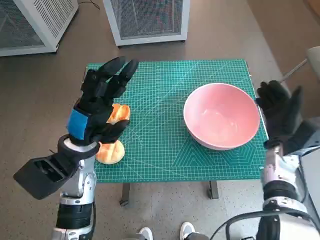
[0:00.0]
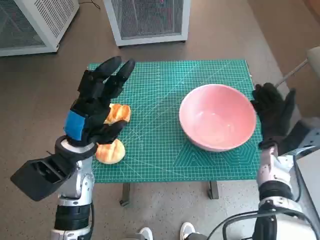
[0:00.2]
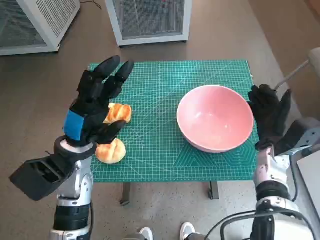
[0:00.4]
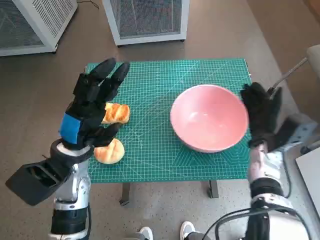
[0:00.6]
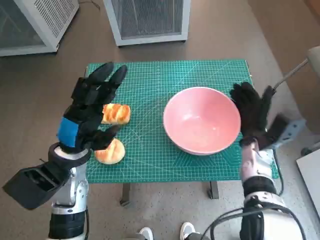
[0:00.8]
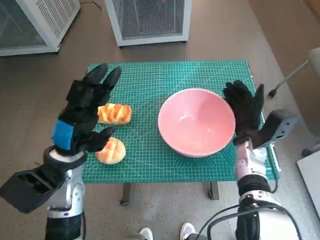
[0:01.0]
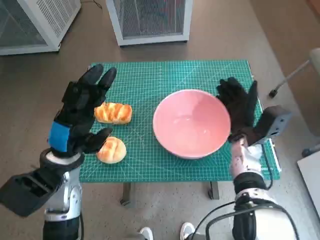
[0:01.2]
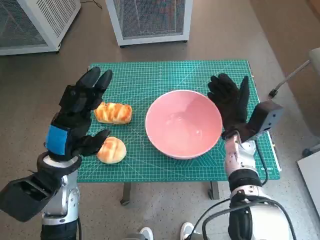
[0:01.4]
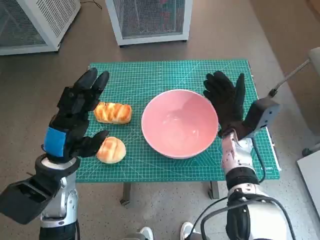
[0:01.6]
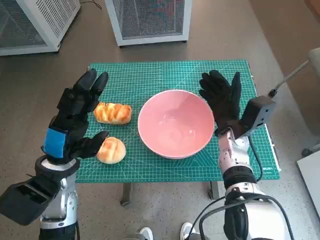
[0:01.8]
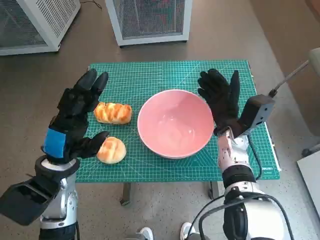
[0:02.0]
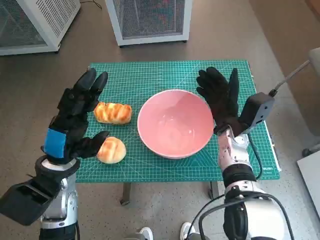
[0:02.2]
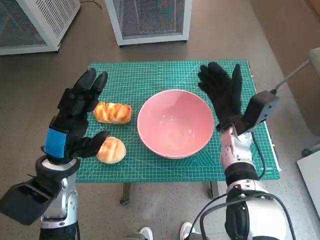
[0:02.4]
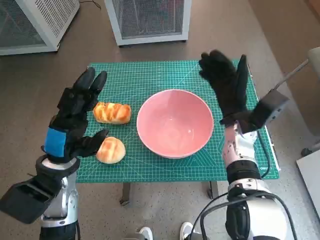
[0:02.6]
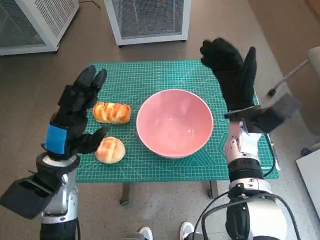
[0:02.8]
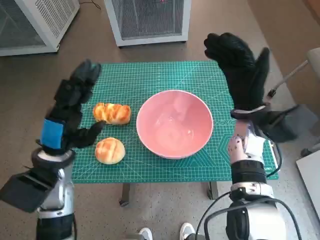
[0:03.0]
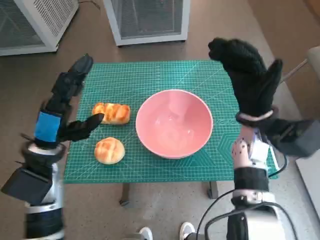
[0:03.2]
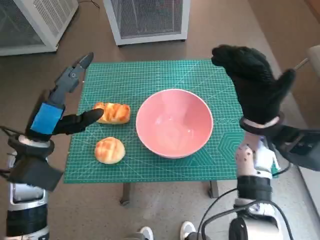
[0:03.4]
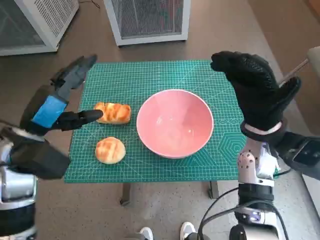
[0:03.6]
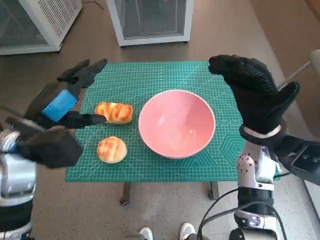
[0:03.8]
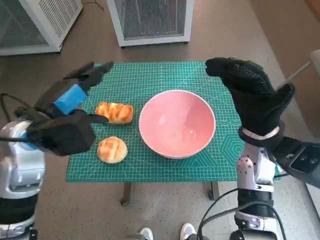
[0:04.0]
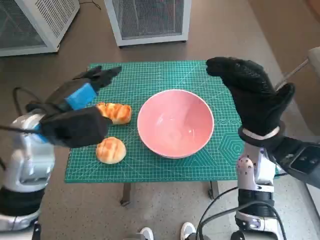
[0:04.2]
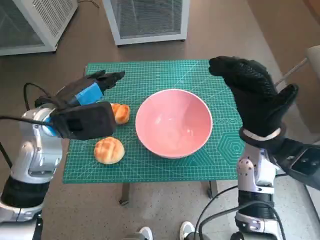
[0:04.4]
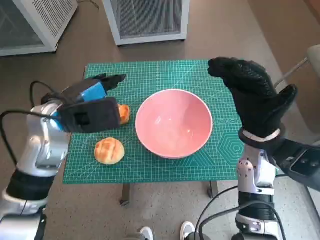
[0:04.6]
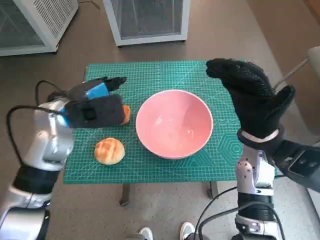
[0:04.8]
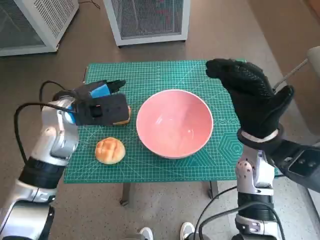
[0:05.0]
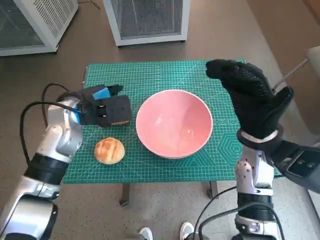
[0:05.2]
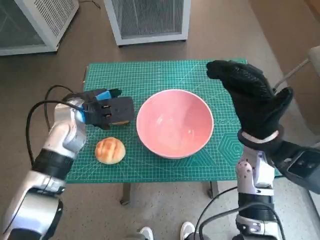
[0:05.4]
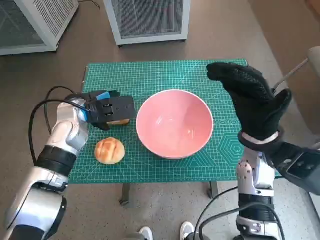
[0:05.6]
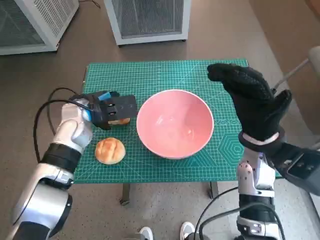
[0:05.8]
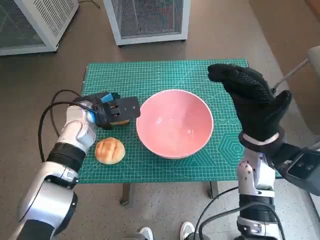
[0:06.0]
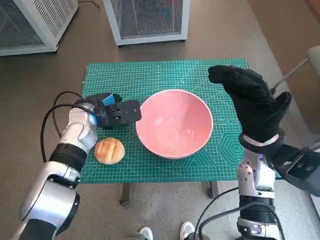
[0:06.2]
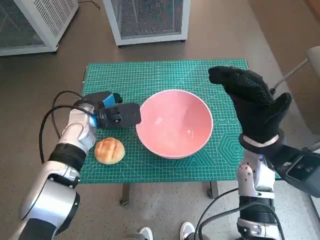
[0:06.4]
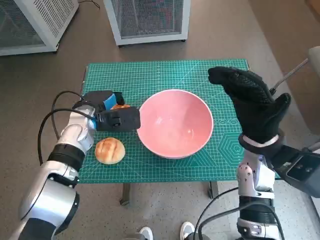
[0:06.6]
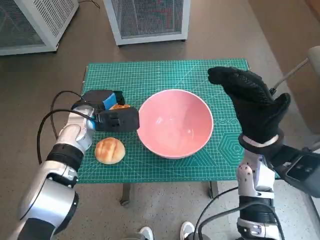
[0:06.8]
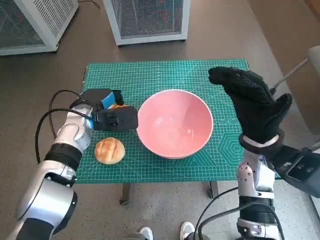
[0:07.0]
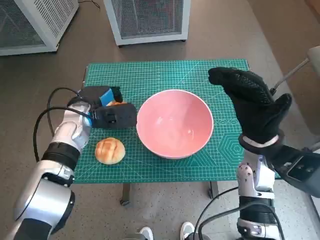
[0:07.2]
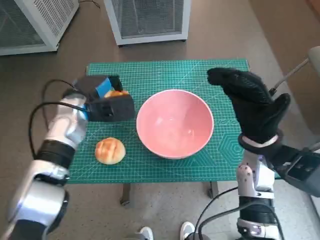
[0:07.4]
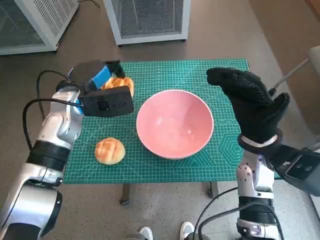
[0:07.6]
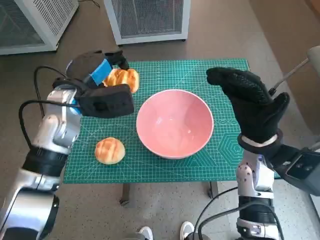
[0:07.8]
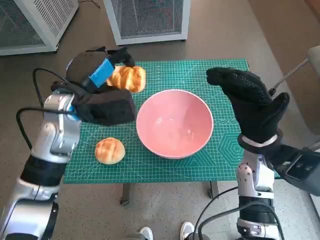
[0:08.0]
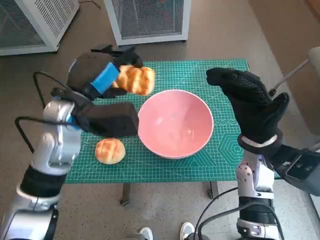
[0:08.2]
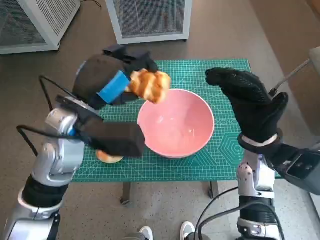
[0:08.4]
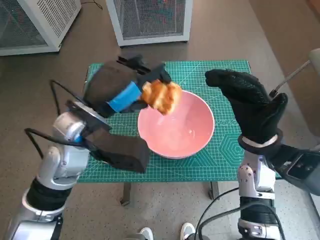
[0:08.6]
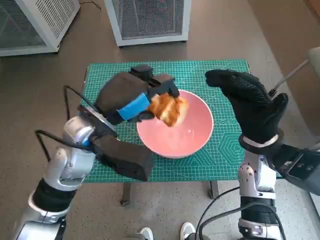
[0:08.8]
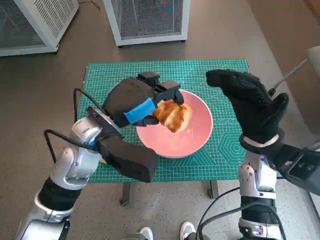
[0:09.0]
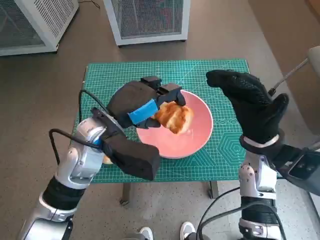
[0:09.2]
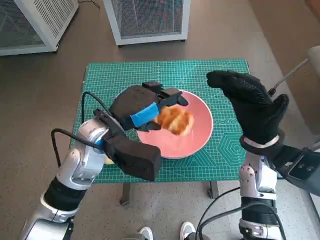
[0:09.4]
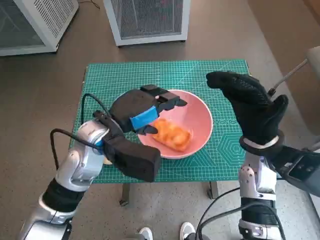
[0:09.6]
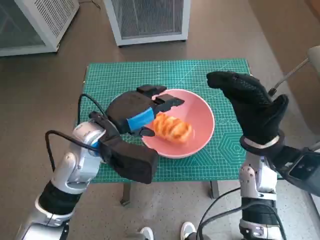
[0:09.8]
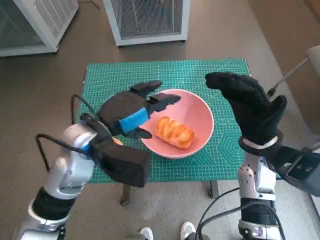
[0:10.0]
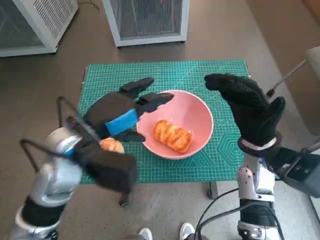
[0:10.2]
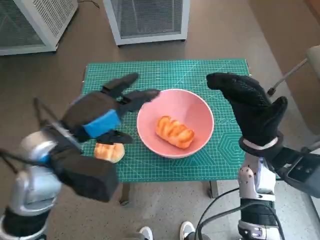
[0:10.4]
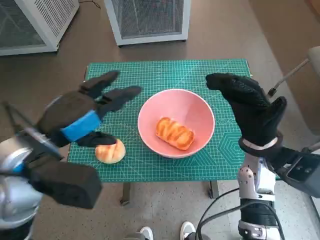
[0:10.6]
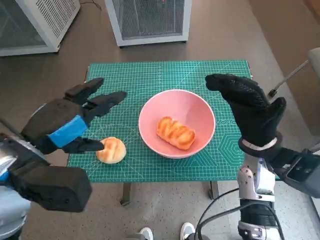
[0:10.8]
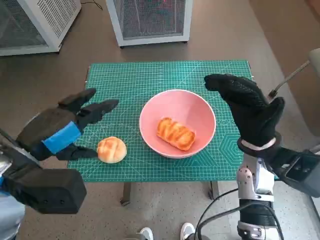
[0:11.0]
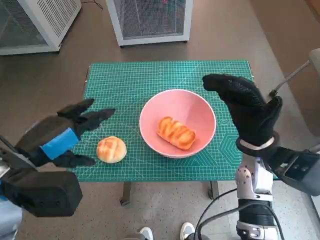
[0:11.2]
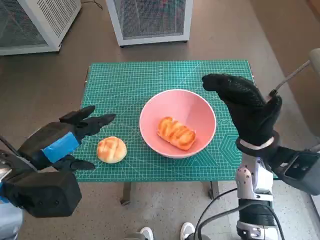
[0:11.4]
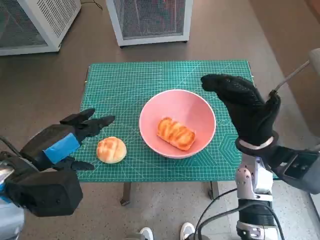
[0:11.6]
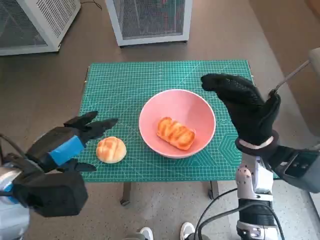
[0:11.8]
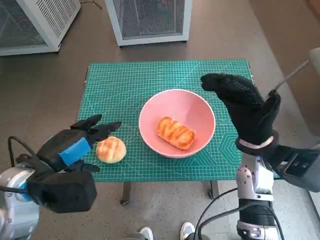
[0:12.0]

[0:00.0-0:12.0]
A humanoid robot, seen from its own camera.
Task of the whole recording: Push the bowl into the center of the table and put the bread into the bowl.
Step, 0.0 to 2.4 s: Move the pink bowl to the center of table with right hand.
Step, 2.6 to 6.4 s: Grasp the long bread with left hand.
Step, 6.6 to 9.4 s: Place the long bread in pink bowl with left hand.
0.0 to 1.6 s: The right hand travels to the left by roughly 10 cm.
1.6 to 3.0 s: The right hand heads upward, covering approximately 5 cm.
3.0 to 4.4 s: The left hand goes roughly 10 cm upward; the right hand travels backward by roughly 5 cm.
4.4 to 6.0 s: The left hand travels downward and forward by some 10 cm.
7.6 to 9.0 s: The left hand shifts roughly 10 cm backward and to the right.
9.0 to 10.4 s: The left hand ends up some 5 cm from where it was.
10.4 to 12.0 s: The left hand goes some 5 cm to the left.

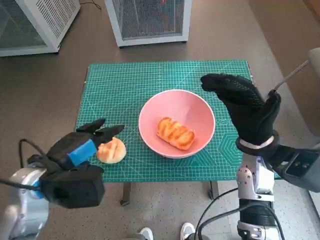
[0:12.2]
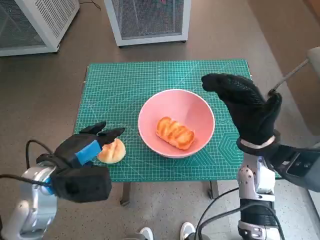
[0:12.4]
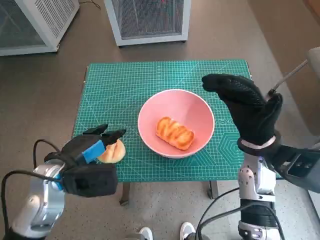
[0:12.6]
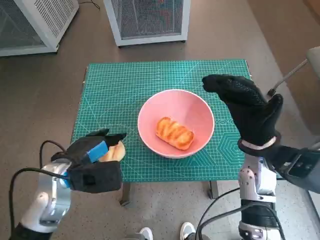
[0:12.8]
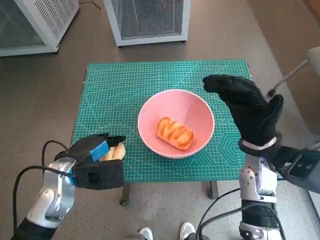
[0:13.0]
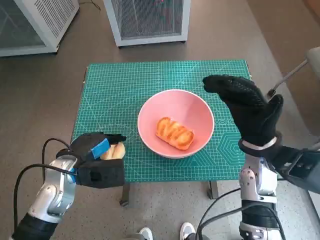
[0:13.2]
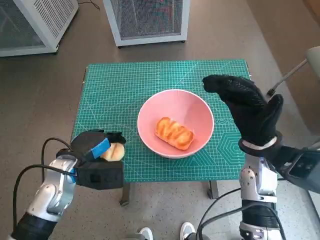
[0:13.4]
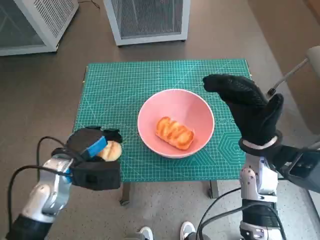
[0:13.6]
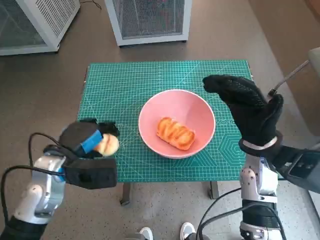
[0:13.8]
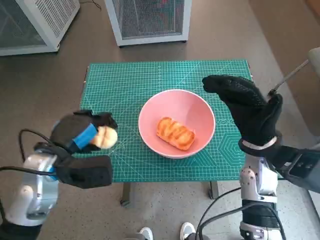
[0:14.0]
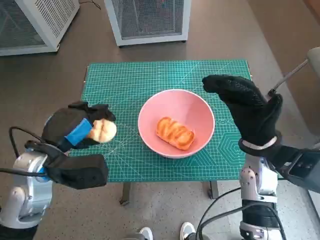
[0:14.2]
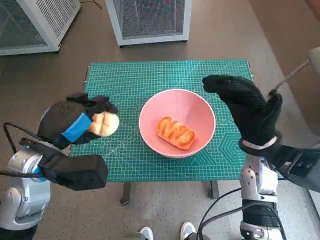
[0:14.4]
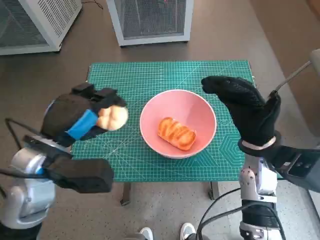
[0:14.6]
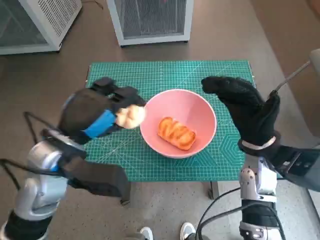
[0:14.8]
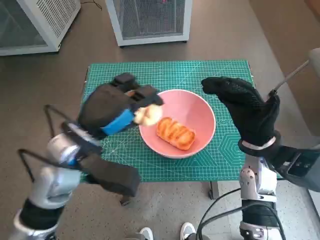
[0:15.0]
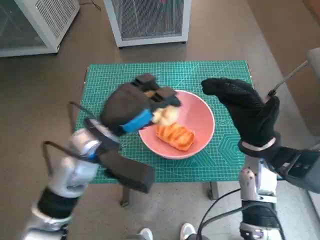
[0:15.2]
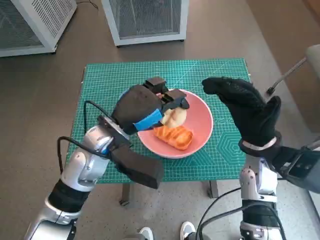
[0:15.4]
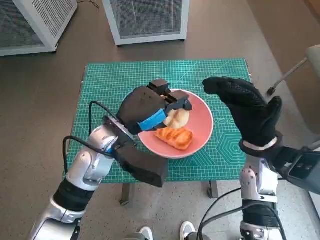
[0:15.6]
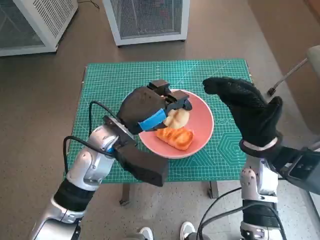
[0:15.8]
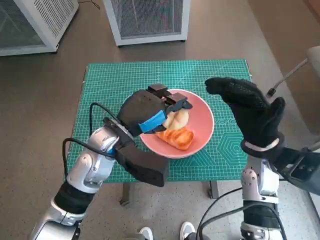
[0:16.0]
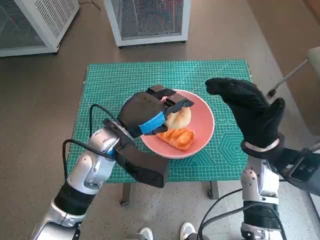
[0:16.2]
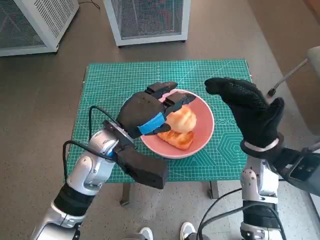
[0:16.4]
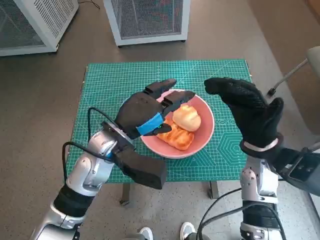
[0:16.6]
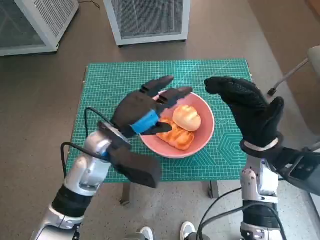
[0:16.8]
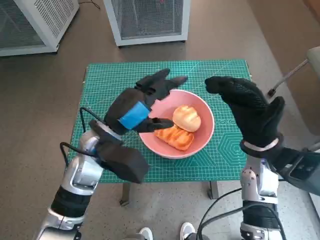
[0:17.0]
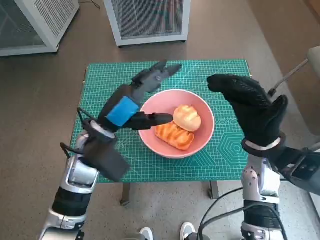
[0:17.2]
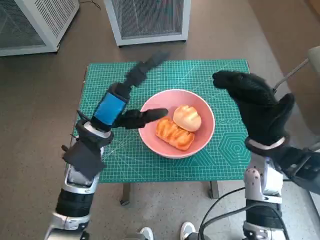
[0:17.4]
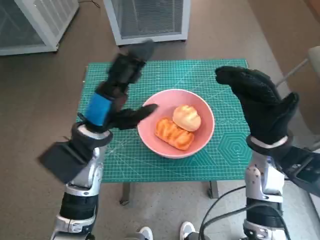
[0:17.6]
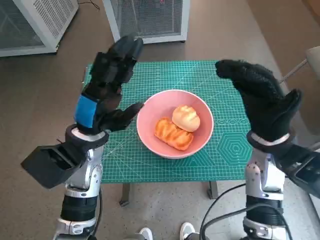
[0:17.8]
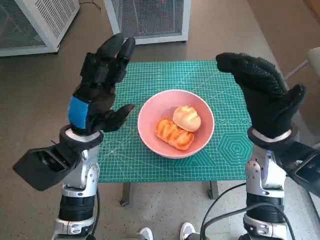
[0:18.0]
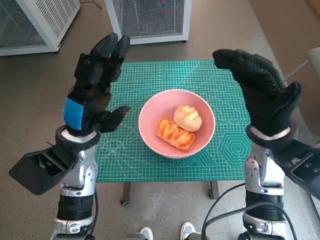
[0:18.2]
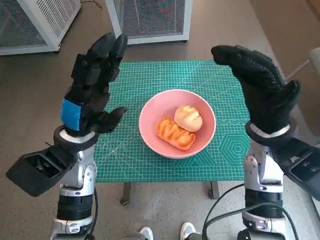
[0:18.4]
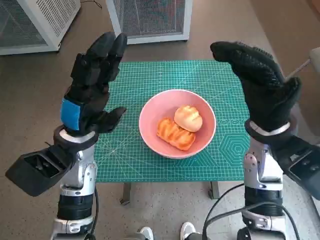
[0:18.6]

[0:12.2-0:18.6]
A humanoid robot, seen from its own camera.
Task of the whole recording: Push the bowl into the center of the table and put the bread into the bowl.
Step, 13.4 to 16.2 s: Place the round bread in pink bowl with left hand.
12.2 to 13.8 s: The left hand goes about 5 cm downward.
13.8 to 15.4 s: The left hand is displaced to the right and upward by approximately 10 cm.
15.4 to 17.0 s: There are only small adjustments of the hands.
17.0 to 18.6 s: The right hand is displaced upward by approximately 5 cm.

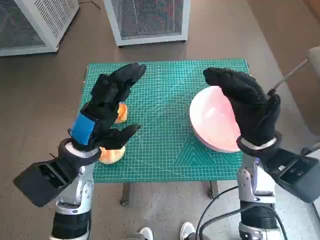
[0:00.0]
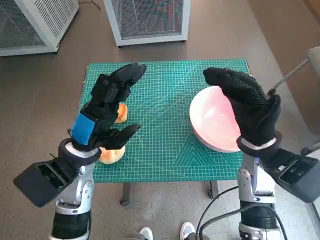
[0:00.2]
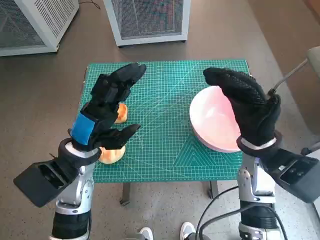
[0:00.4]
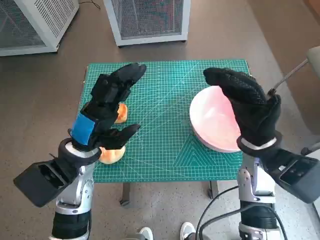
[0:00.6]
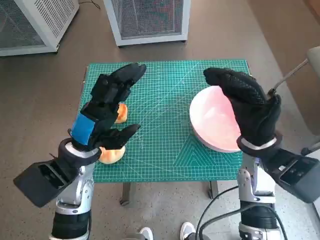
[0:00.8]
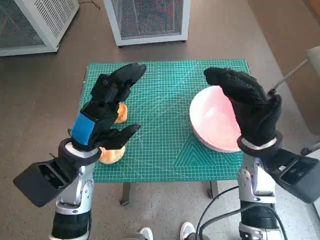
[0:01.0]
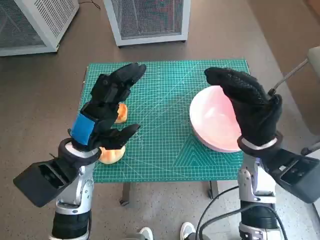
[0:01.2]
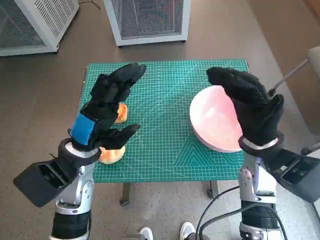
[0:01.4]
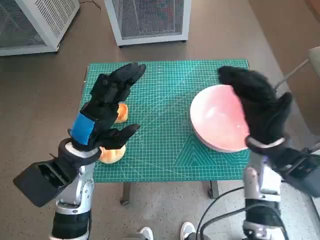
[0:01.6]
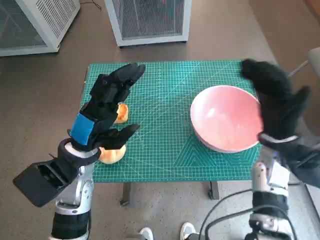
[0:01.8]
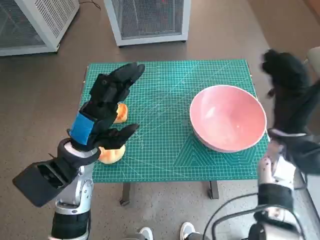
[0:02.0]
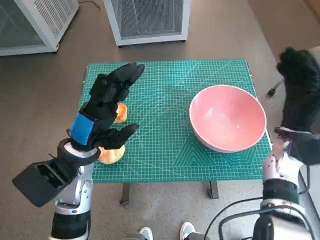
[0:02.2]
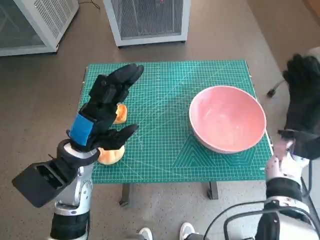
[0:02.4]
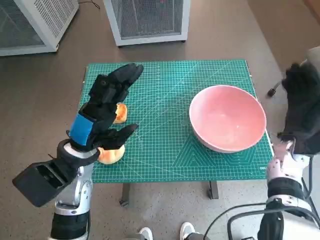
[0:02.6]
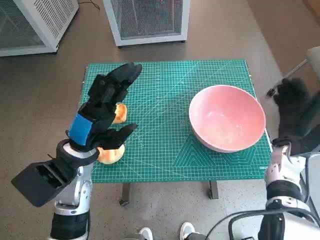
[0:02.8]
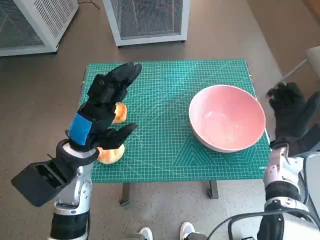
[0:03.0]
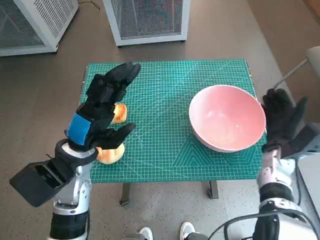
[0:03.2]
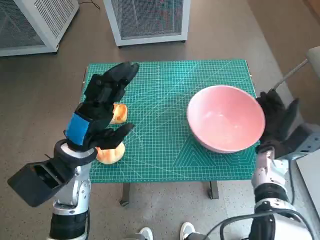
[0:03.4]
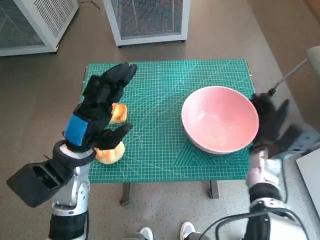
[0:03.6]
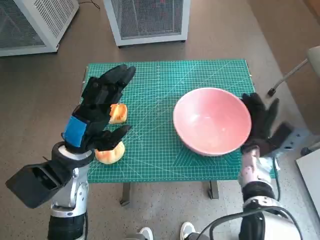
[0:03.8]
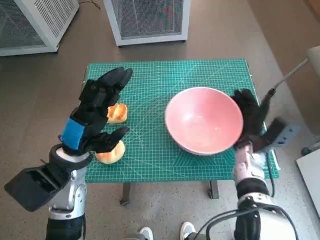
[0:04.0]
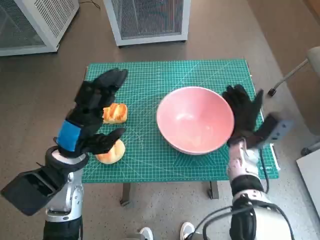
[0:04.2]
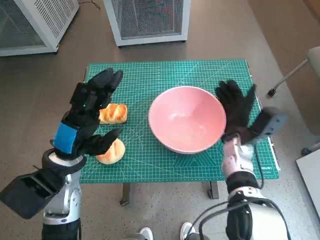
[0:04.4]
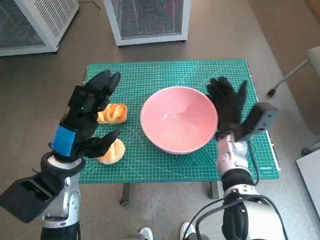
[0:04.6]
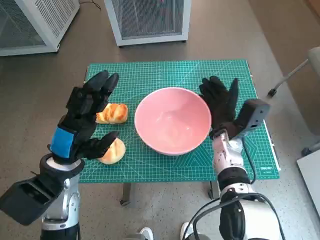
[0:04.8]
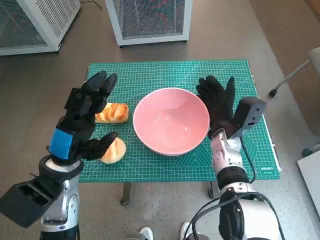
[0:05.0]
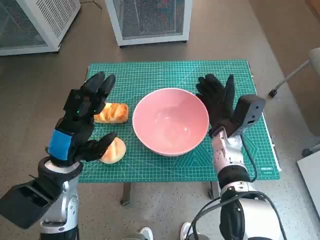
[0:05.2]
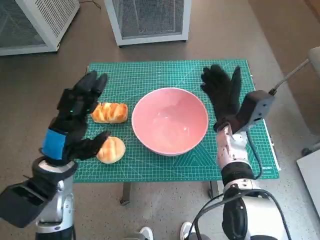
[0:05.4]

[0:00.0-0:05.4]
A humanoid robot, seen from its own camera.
Task of the whole recording: Push the bowl into the center of the table and put the bread into the bowl.
Step, 0.0 to 5.2 s: Move the pink bowl to the center of table with right hand.
1.4 to 2.8 s: The right hand shifts approximately 10 cm to the right and downward.
2.8 to 4.0 s: The right hand heads to the left, covering some 5 cm.
4.0 to 5.4 s: The right hand moves to the left, some 5 cm.
